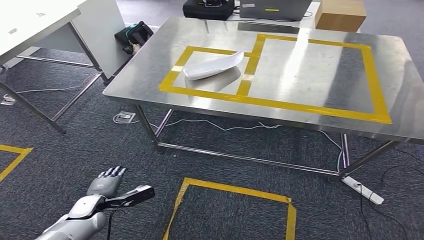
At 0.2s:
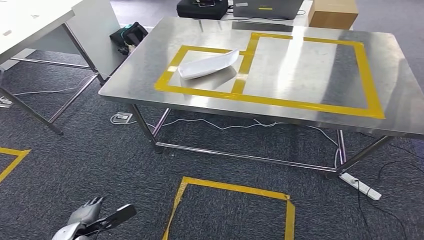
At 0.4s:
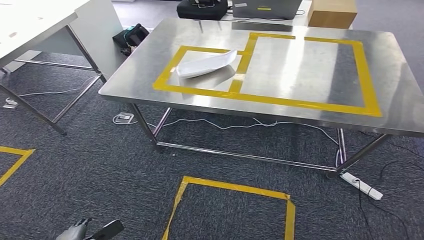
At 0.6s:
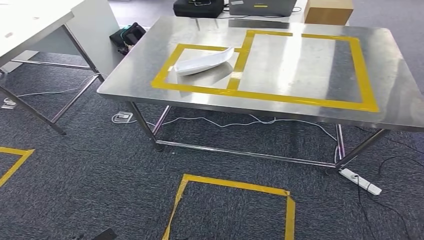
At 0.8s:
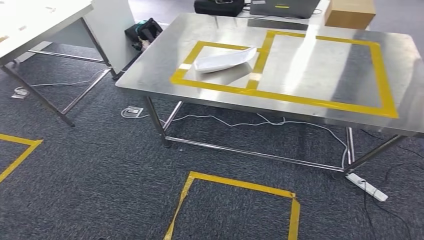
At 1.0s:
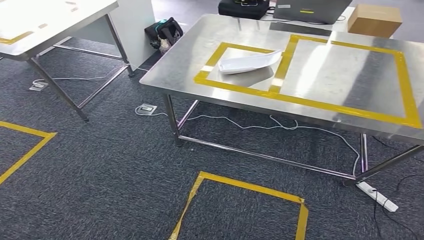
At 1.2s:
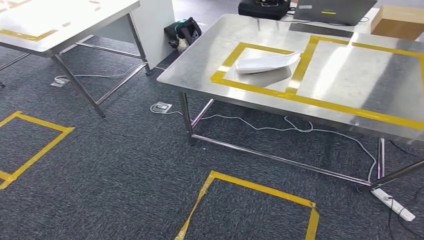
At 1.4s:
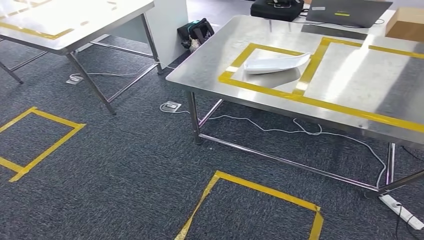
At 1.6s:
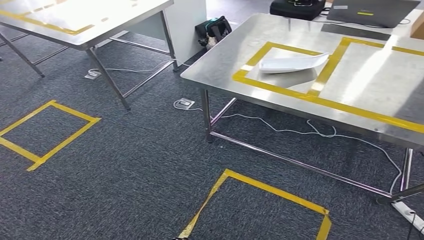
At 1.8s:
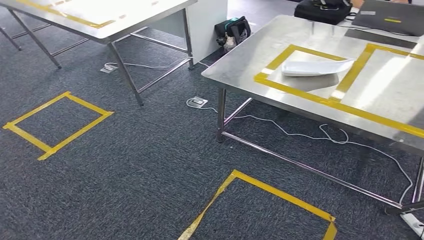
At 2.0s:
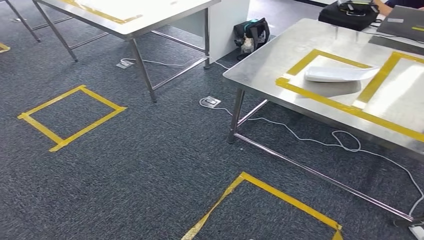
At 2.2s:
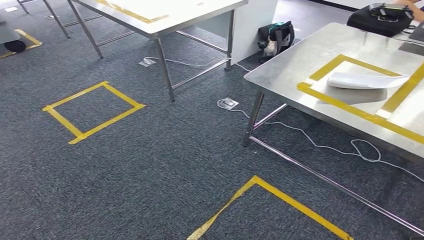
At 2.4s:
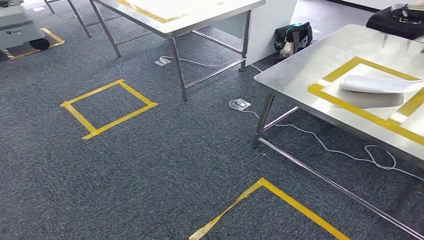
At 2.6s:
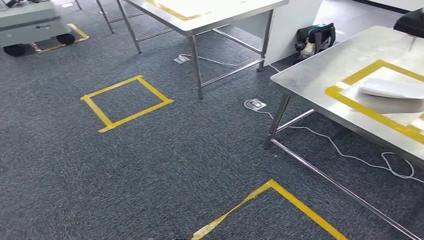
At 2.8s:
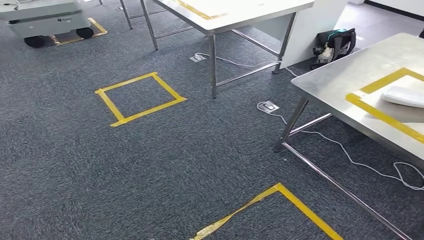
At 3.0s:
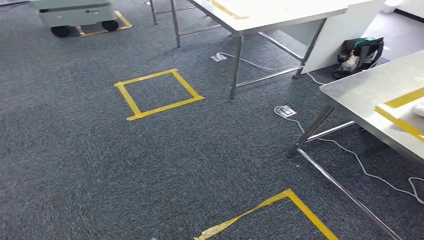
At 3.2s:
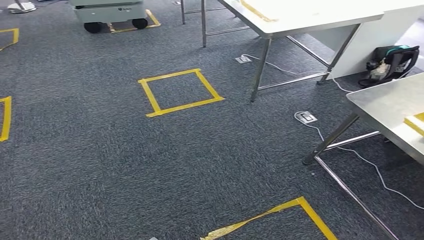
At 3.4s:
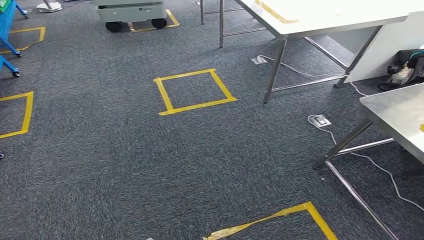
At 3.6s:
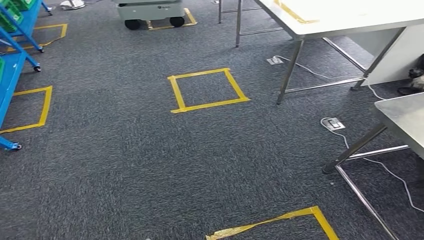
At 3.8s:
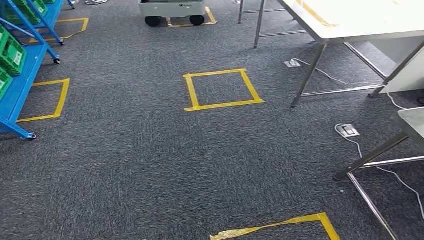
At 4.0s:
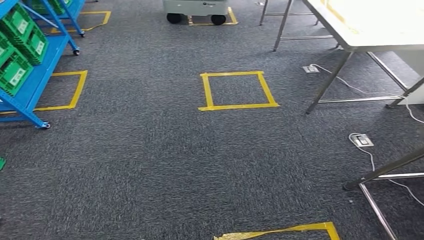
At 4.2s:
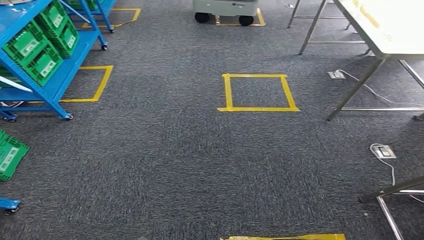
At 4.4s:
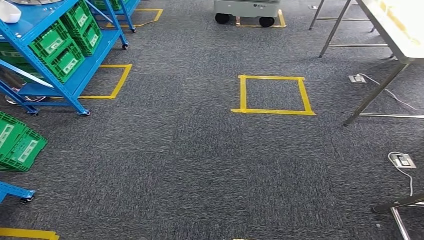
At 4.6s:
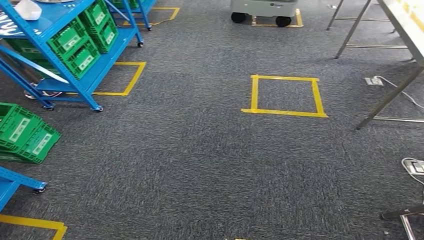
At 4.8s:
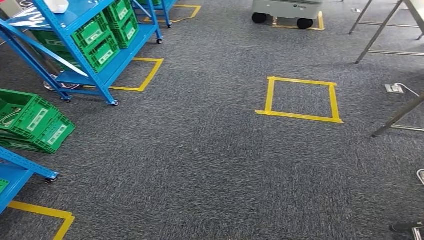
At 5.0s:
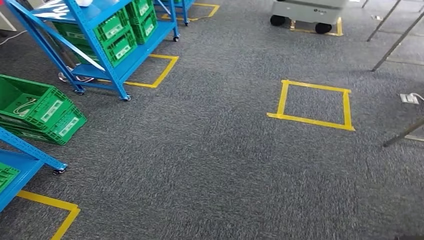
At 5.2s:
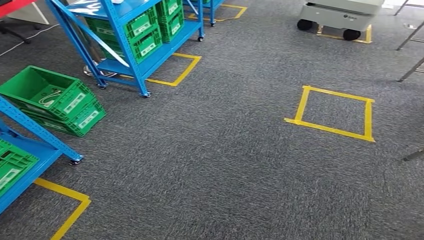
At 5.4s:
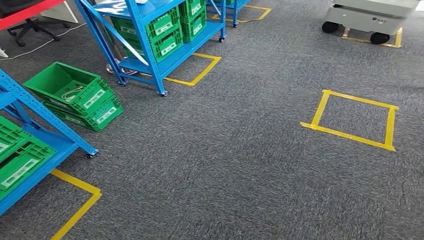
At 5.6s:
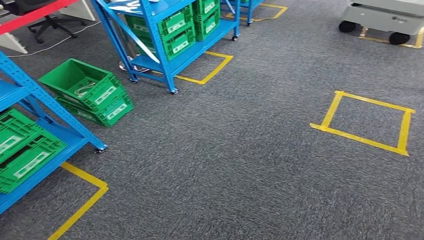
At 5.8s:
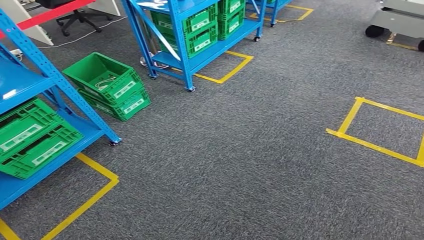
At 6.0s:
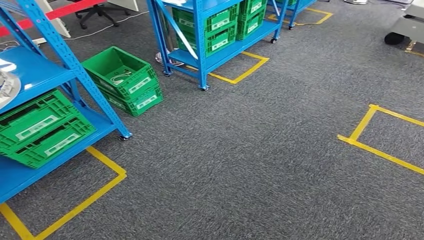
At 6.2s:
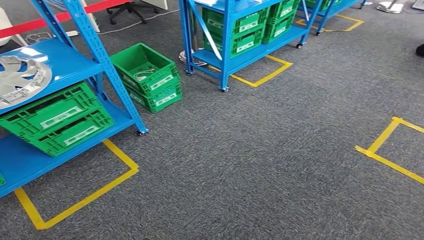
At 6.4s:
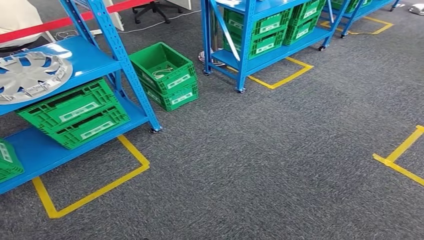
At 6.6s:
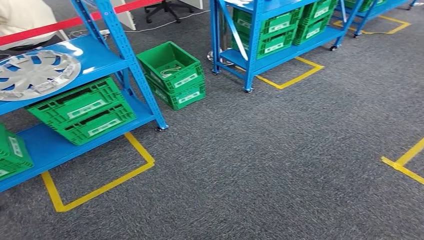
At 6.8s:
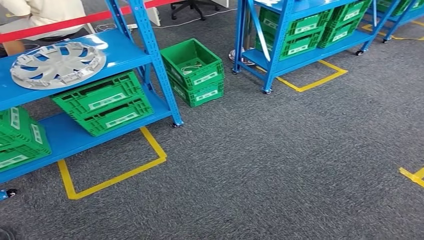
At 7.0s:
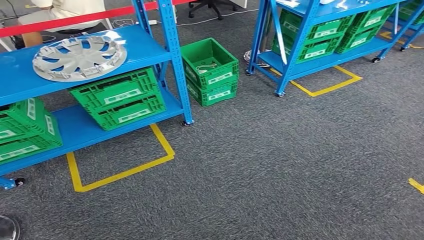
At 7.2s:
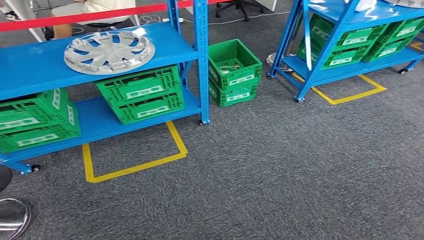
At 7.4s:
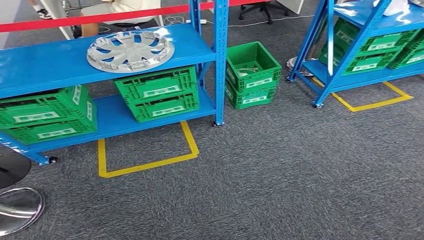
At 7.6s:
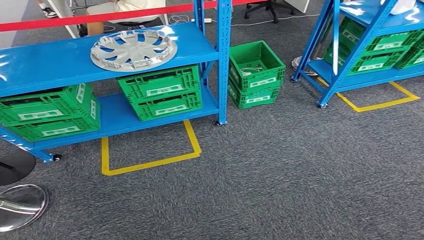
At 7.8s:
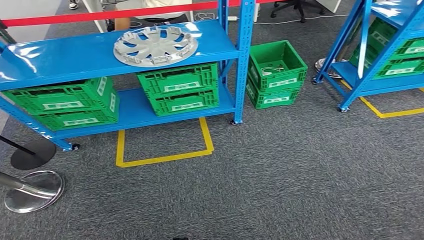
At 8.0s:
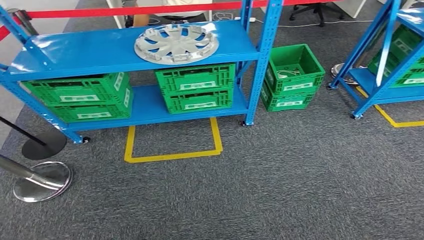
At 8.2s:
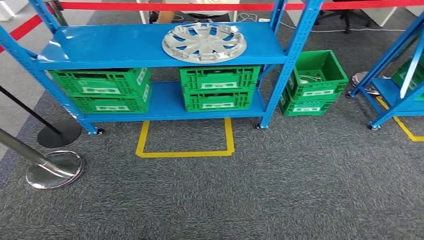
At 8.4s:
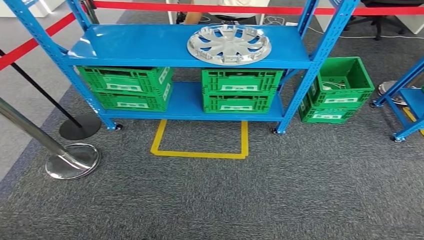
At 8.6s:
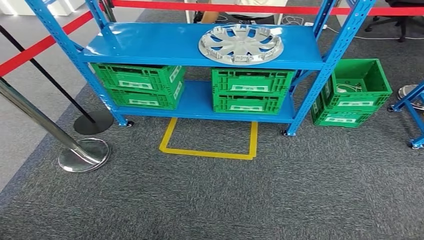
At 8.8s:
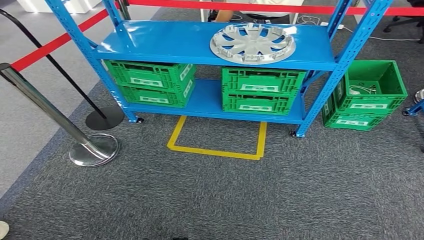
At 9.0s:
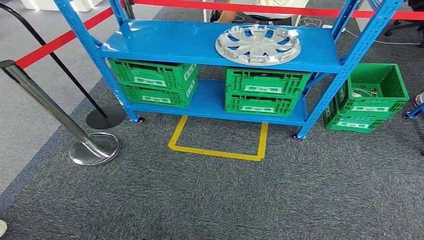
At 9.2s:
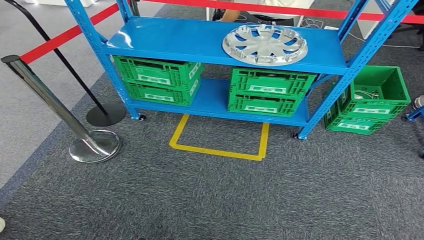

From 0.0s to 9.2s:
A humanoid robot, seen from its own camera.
Step, from 0.0s to 9.2s: Move to the initial position of the workbench.

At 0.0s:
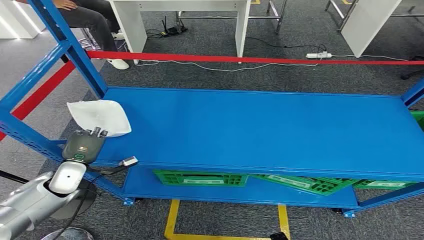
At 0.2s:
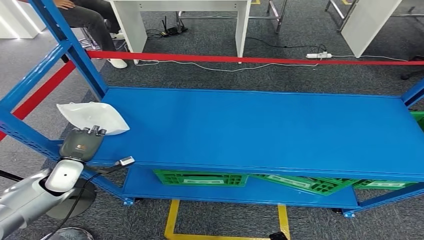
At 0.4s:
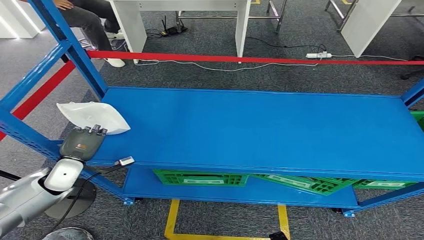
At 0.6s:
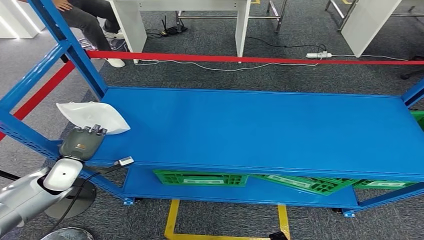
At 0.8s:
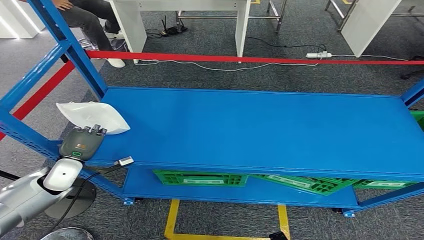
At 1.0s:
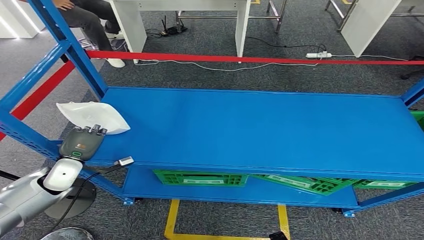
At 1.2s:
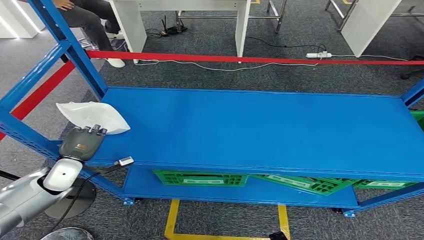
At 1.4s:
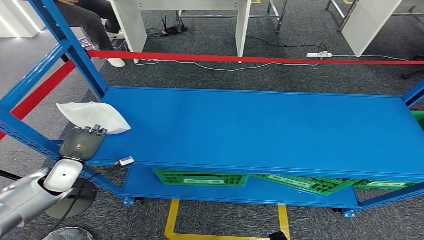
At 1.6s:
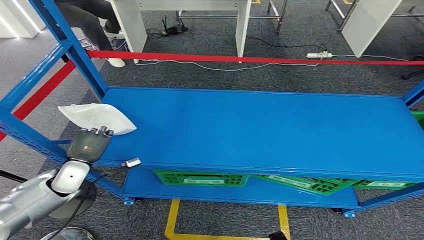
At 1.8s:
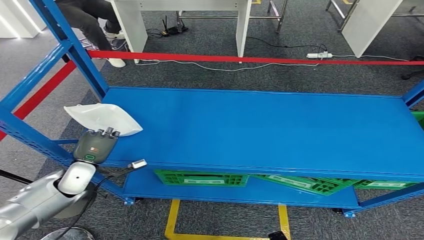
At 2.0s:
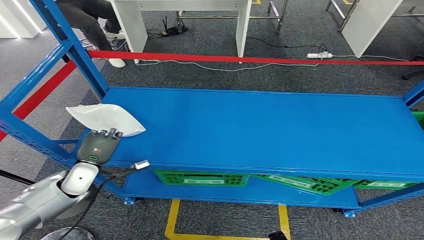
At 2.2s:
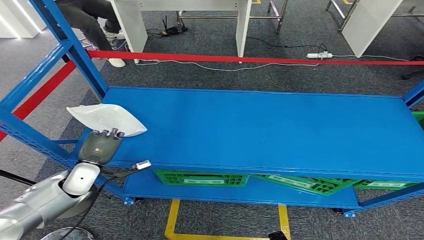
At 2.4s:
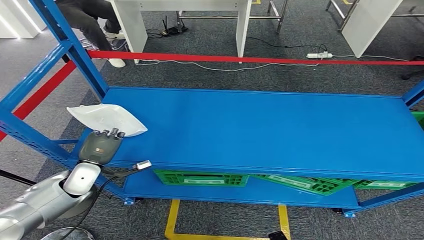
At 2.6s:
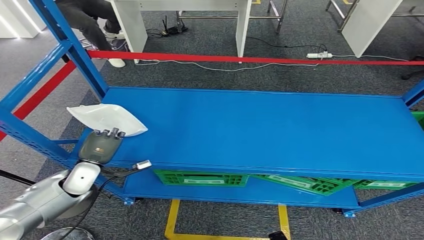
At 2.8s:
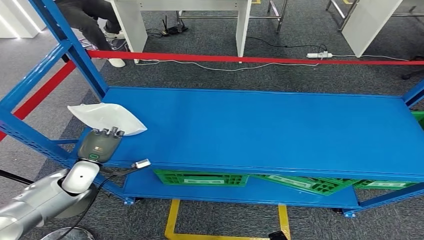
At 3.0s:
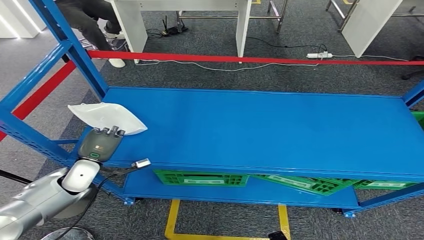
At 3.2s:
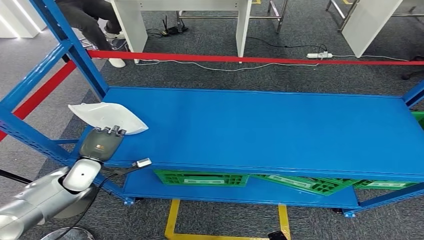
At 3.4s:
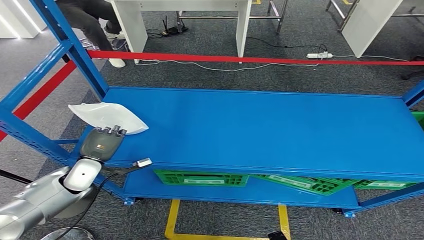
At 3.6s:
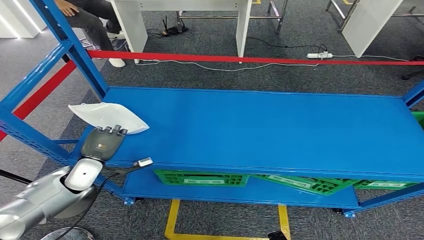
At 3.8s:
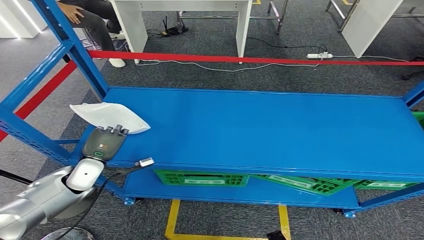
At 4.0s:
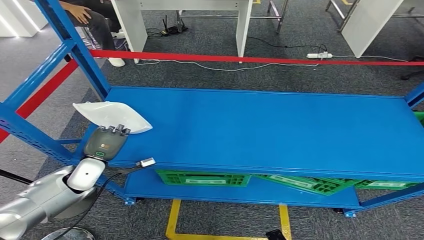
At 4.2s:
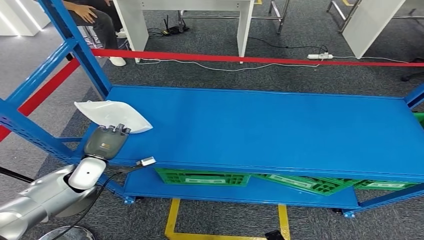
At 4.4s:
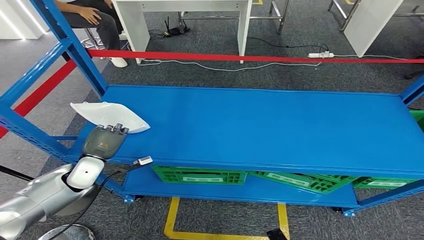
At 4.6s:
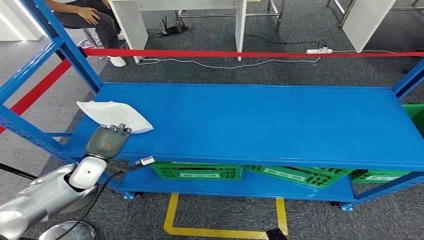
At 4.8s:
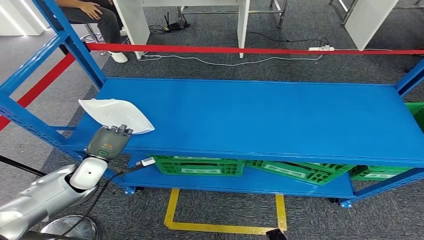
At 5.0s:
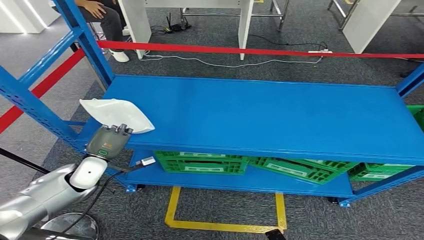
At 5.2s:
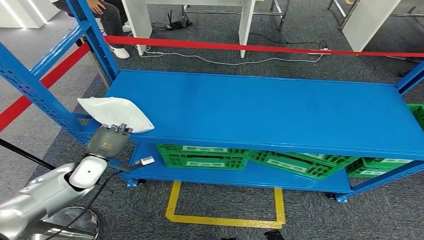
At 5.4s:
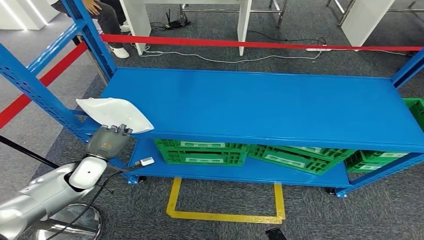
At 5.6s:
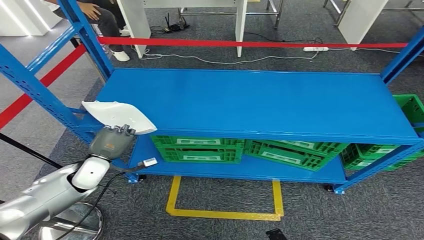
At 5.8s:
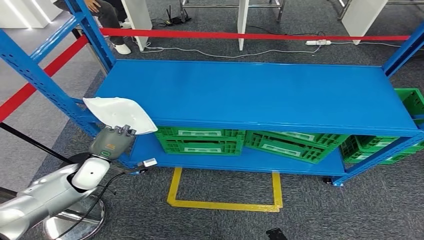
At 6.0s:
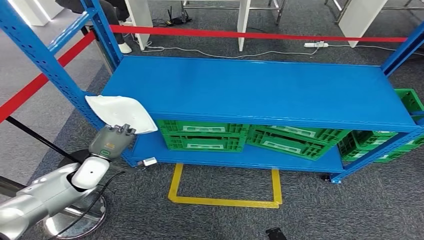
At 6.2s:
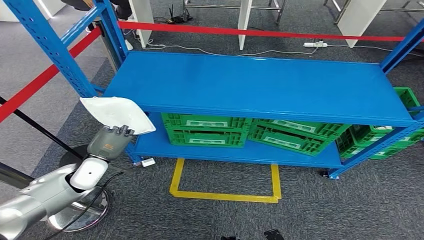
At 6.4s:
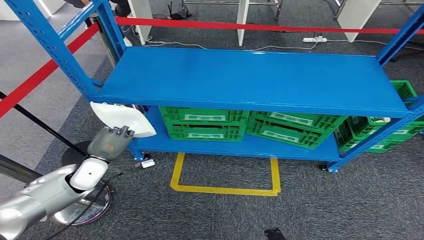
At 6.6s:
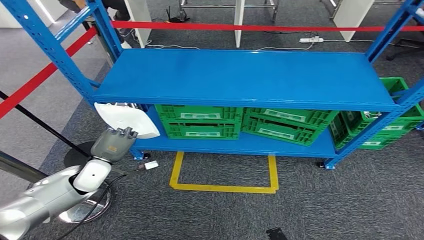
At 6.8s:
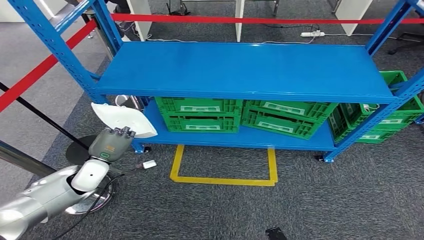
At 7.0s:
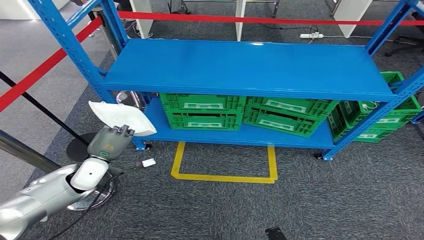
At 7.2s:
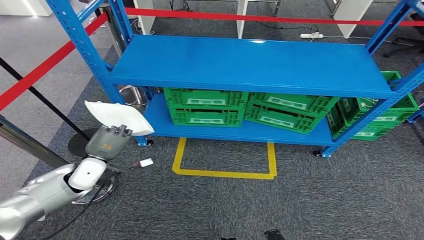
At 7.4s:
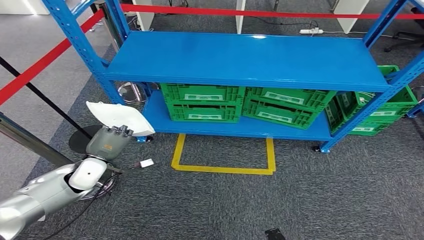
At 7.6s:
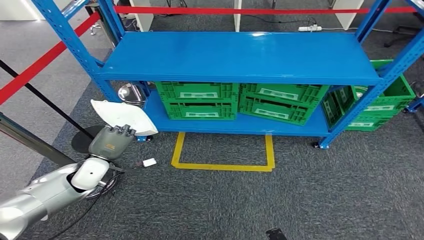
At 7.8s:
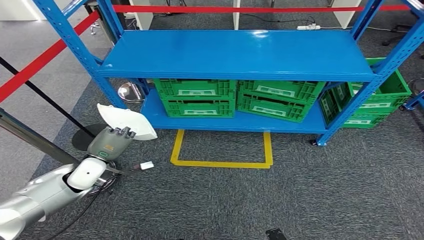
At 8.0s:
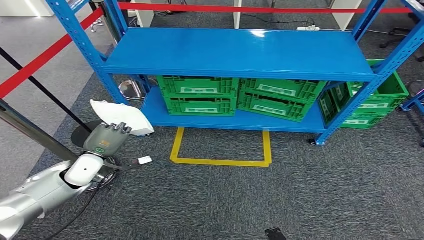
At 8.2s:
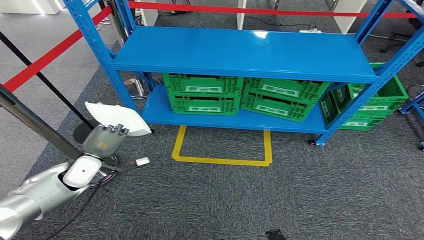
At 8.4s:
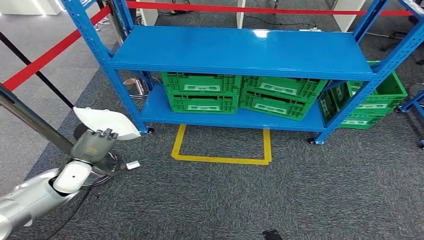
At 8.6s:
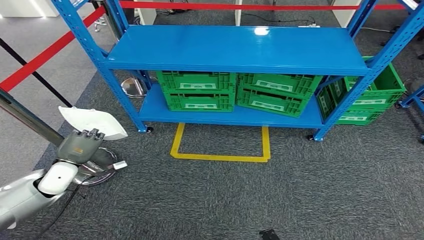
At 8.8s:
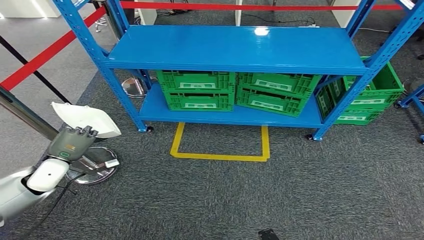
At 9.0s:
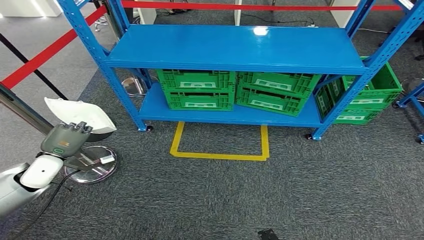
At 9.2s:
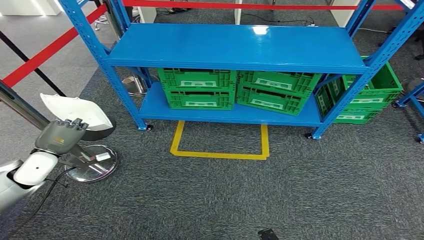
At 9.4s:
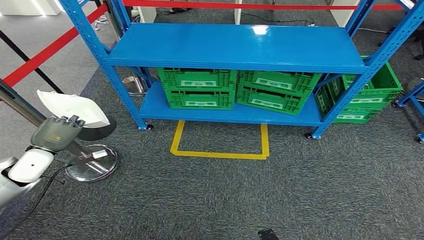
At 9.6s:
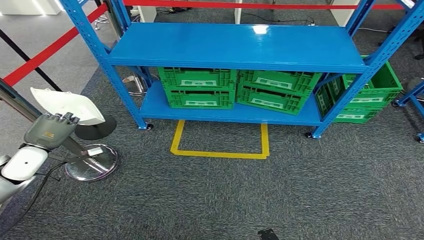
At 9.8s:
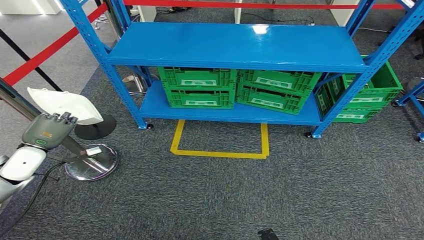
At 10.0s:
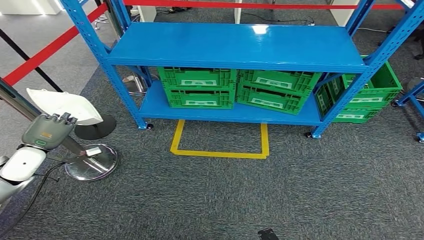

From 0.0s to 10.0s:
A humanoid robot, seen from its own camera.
Step, from 0.0s to 7.2s: Take small components from the rack.
From 1.4s to 4.2s: The hands stay close to where they were, moving slightly.
